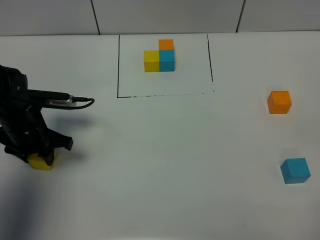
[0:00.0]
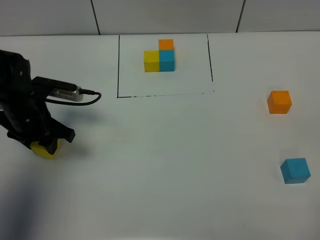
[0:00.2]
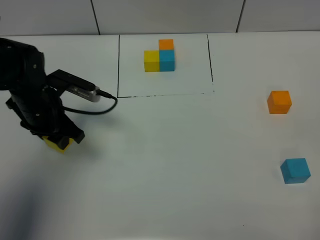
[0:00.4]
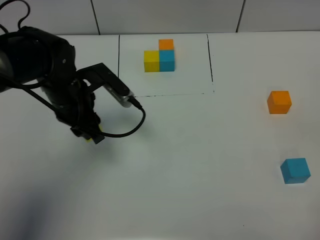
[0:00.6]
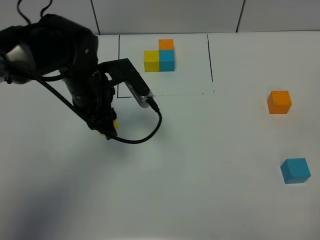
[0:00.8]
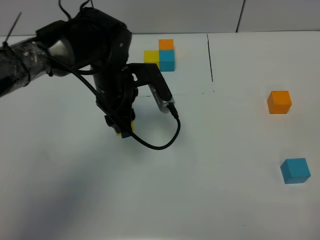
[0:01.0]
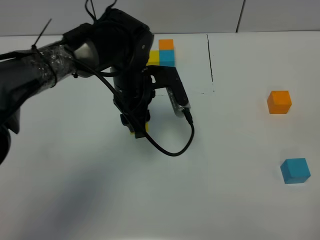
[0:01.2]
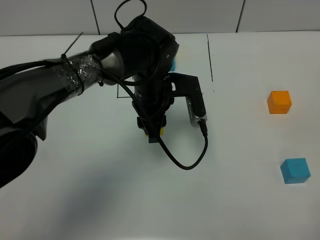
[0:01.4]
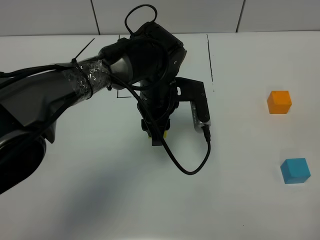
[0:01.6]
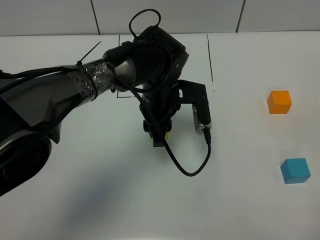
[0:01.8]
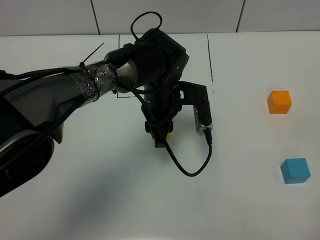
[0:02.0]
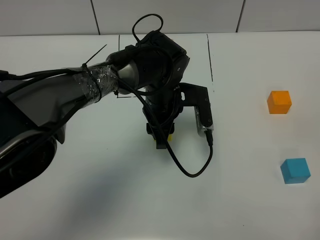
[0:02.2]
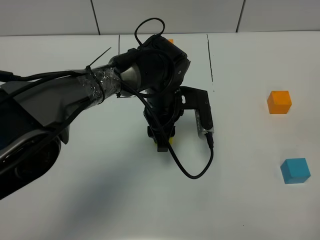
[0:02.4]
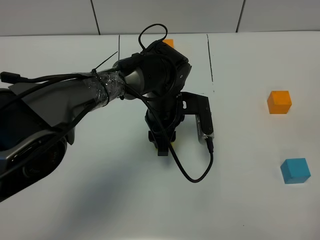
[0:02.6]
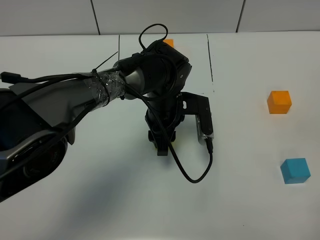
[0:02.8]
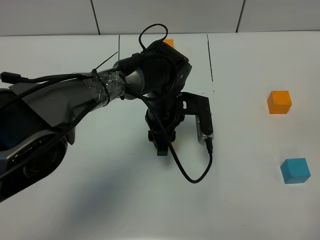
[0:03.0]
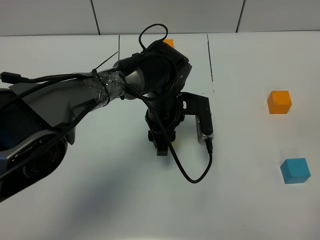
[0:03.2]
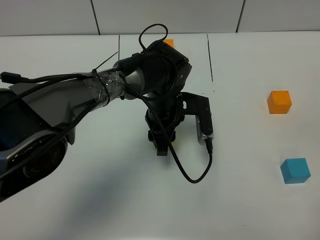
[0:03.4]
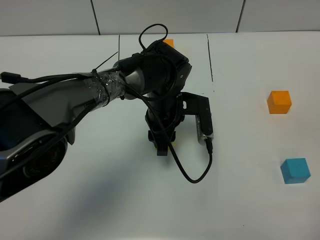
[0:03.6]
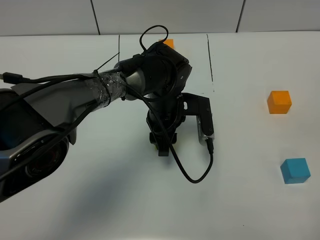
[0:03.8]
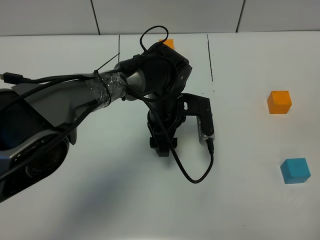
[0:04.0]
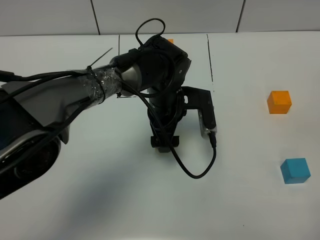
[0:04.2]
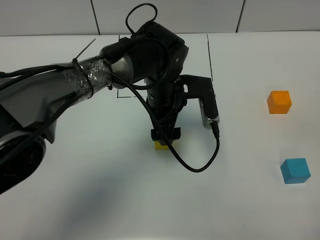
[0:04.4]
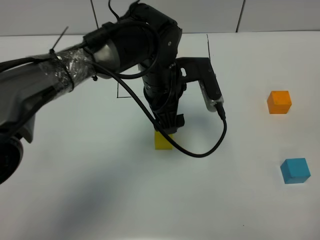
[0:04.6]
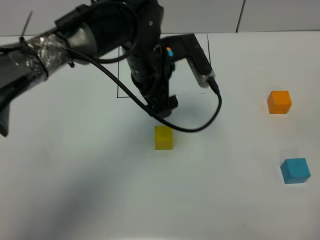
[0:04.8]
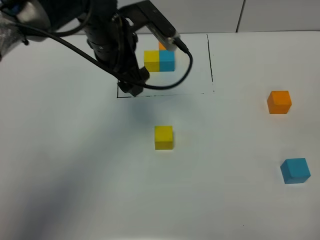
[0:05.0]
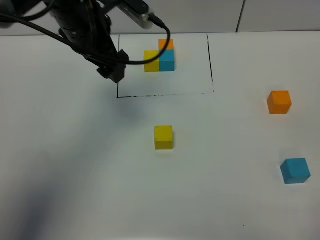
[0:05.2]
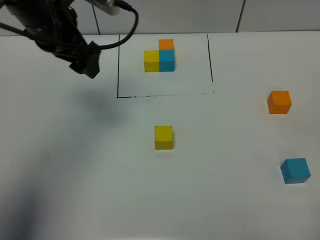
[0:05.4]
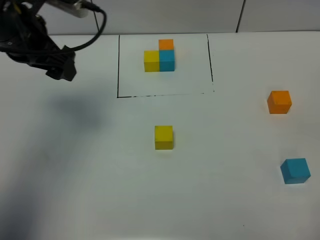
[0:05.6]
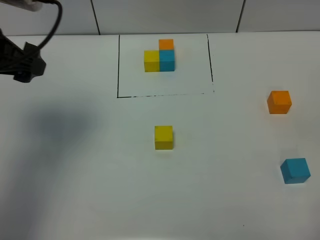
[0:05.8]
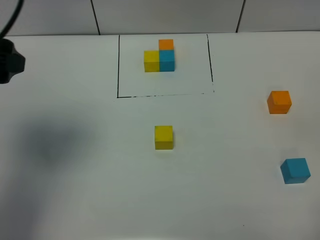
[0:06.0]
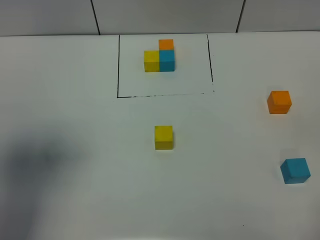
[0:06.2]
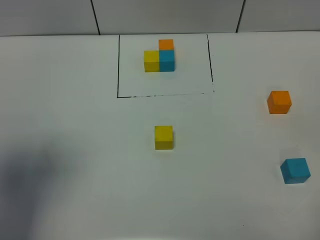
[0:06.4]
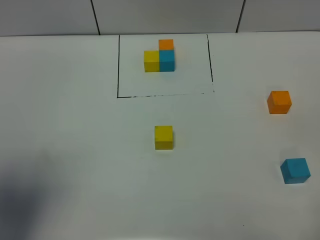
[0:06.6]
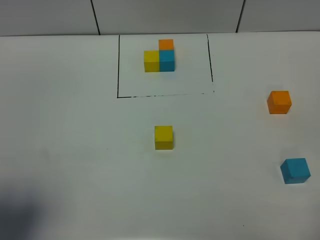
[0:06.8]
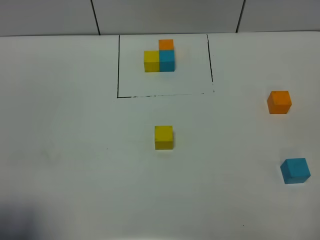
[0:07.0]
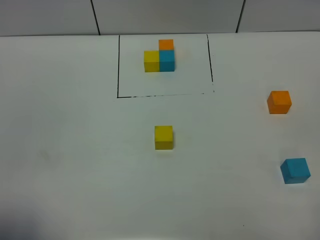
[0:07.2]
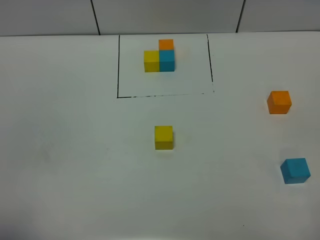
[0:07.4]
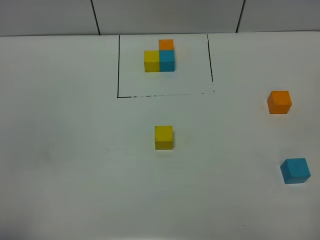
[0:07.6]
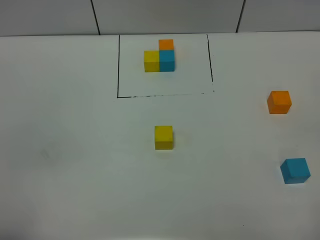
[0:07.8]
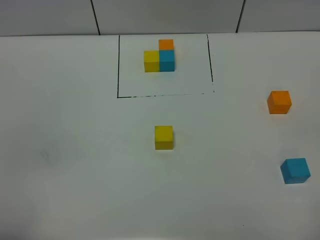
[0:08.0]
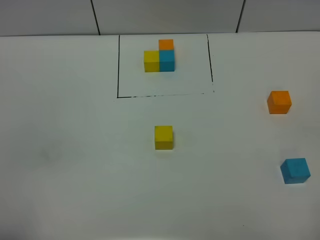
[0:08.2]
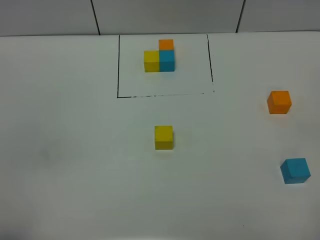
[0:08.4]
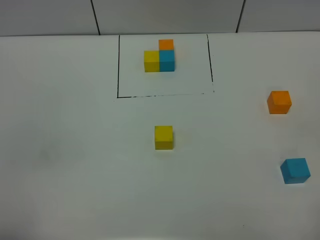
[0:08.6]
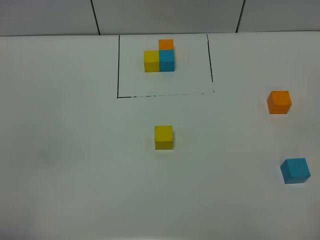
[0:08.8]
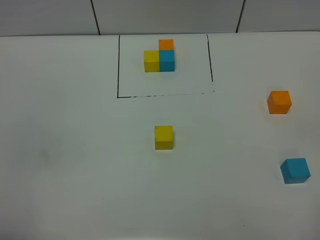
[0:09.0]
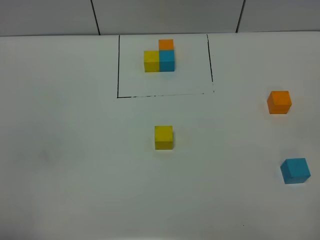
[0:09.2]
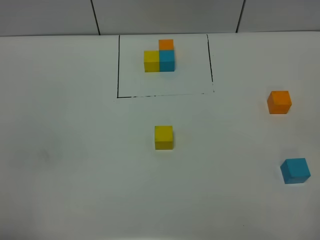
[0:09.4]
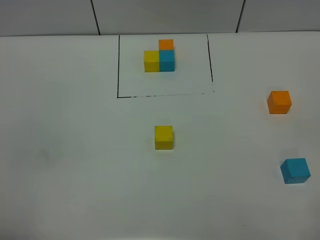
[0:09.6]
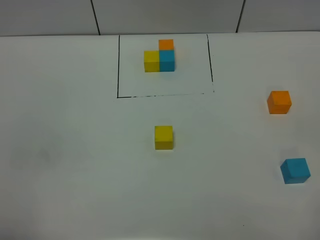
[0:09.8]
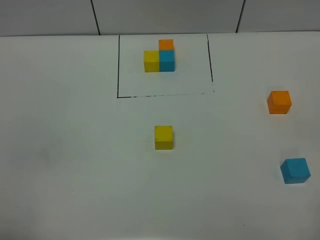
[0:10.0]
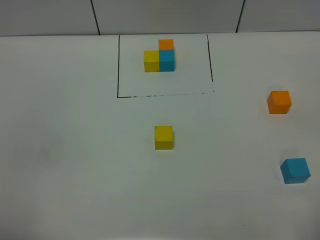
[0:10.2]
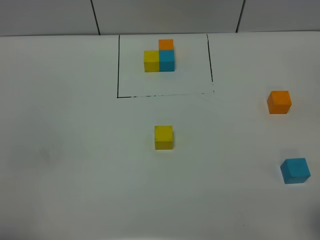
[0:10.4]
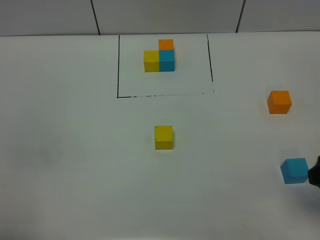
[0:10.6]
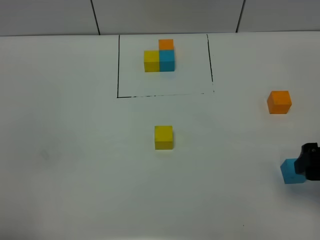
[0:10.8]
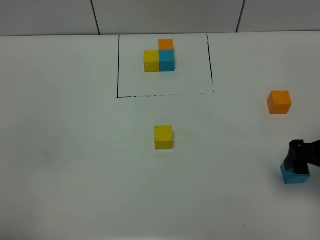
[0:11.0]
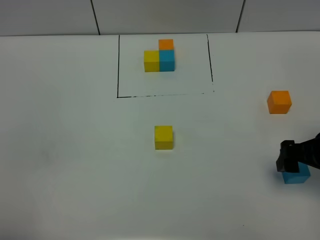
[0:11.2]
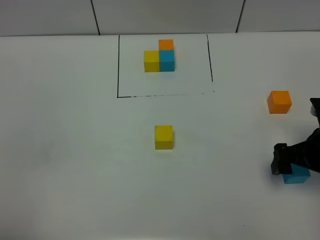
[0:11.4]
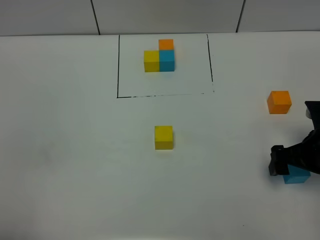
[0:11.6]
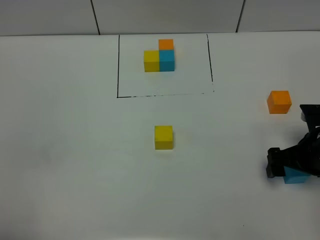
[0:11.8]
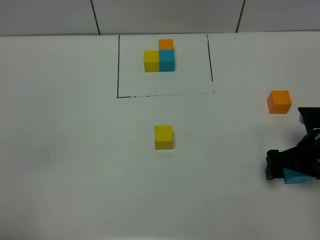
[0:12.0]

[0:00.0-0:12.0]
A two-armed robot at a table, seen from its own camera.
Task of the whole recording: According to the building block template in front, assemble the scattered blocks together.
Step, 0:00.0 to 0:03.8: Put the yellow build block in the center of the table.
0:00.0 to 0:01.6: The left gripper is displaced to the right by some 25 cm.
0:01.6 to 0:03.0: The grippers stay close to where they were, moving slightly.
0:03.0 to 0:04.4: The left gripper opens.
0:04.4 to 0:06.0: The left gripper travels to the left, upward and backward by some 35 cm.
0:06.0 to 0:07.6: The left gripper moves backward, roughly 25 cm.
0:10.4 to 0:12.0: The right gripper goes about 25 cm forward and downward.

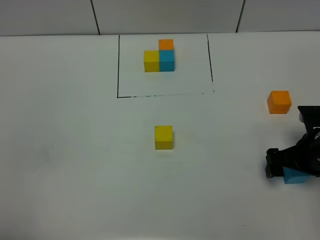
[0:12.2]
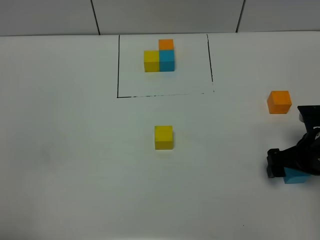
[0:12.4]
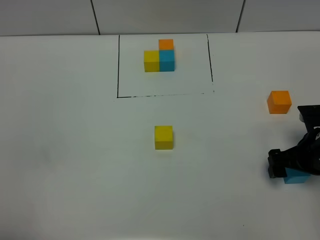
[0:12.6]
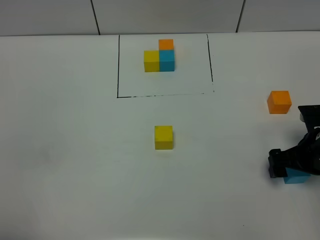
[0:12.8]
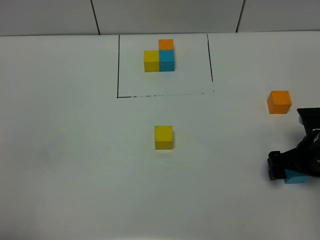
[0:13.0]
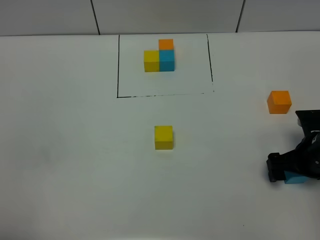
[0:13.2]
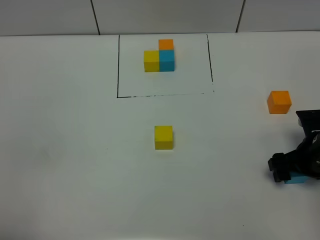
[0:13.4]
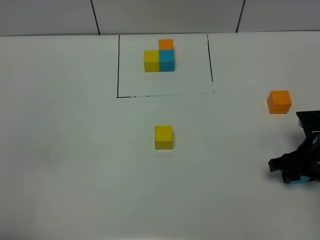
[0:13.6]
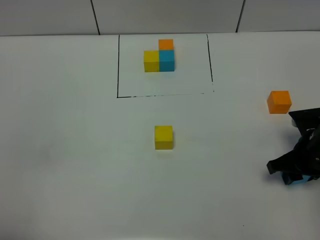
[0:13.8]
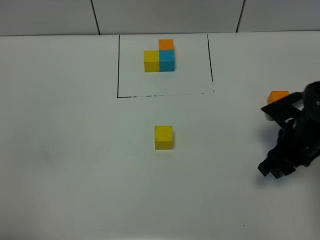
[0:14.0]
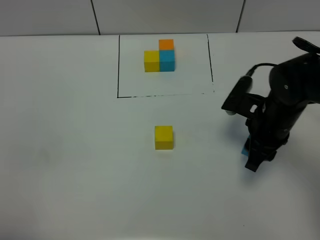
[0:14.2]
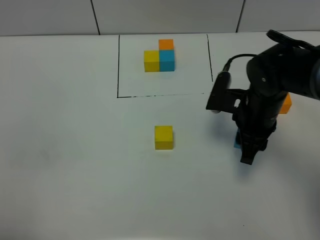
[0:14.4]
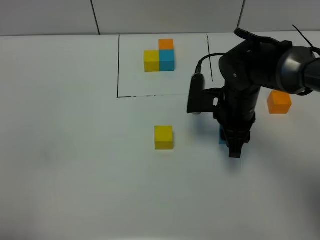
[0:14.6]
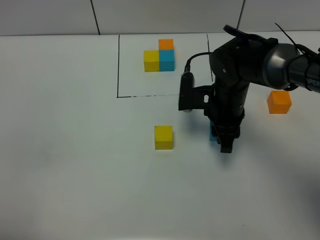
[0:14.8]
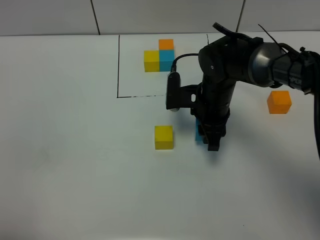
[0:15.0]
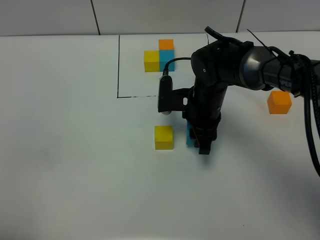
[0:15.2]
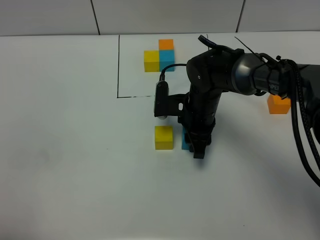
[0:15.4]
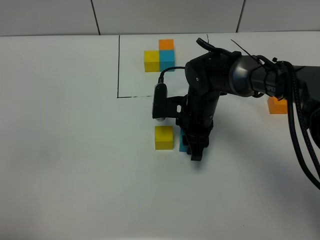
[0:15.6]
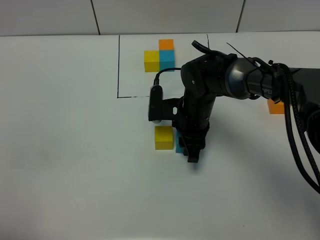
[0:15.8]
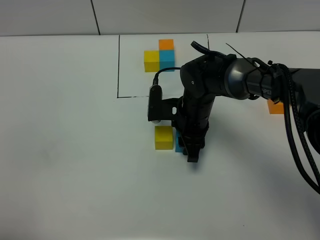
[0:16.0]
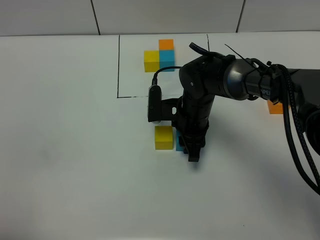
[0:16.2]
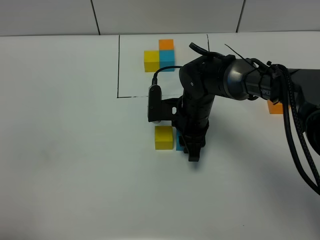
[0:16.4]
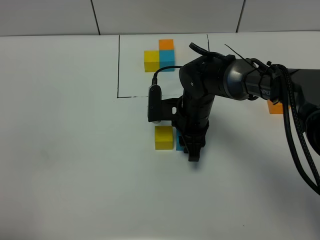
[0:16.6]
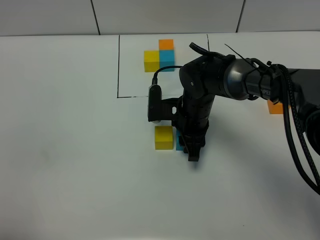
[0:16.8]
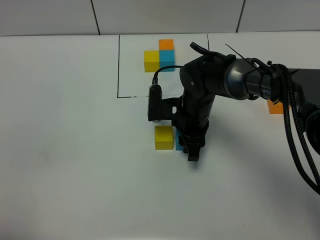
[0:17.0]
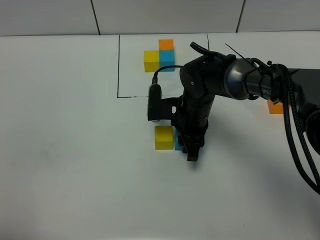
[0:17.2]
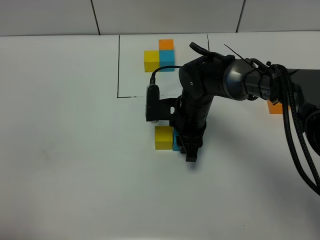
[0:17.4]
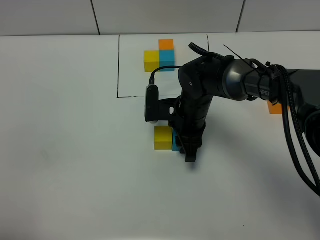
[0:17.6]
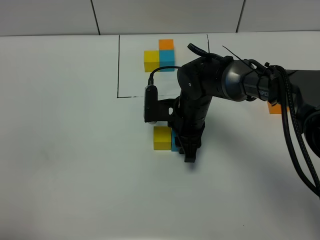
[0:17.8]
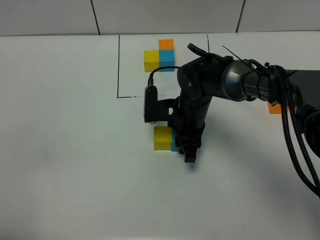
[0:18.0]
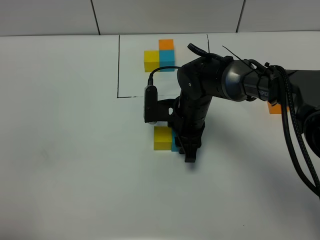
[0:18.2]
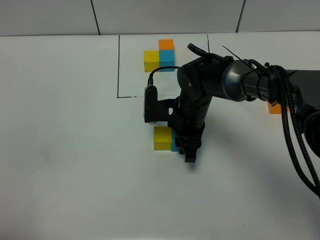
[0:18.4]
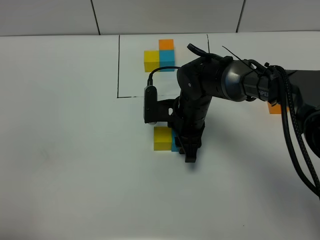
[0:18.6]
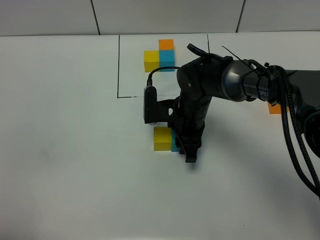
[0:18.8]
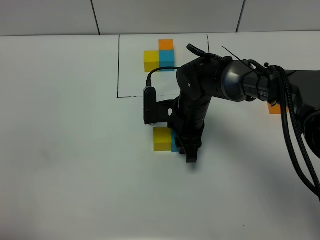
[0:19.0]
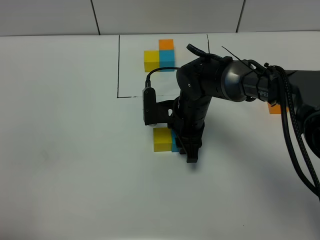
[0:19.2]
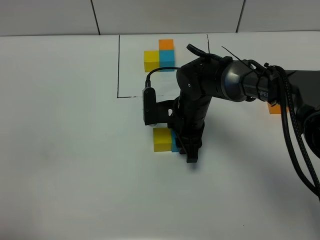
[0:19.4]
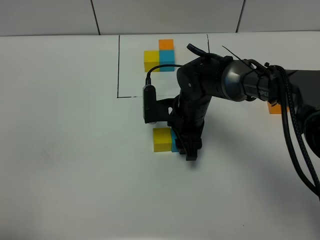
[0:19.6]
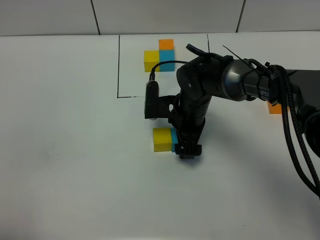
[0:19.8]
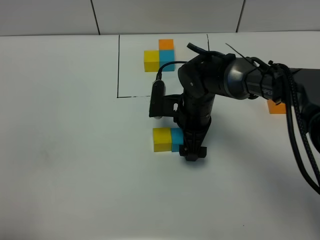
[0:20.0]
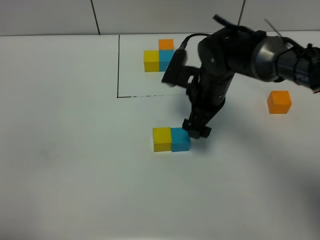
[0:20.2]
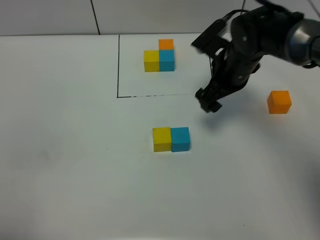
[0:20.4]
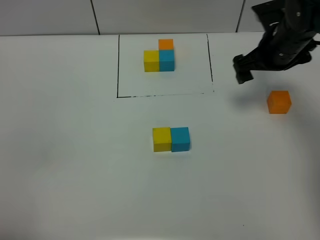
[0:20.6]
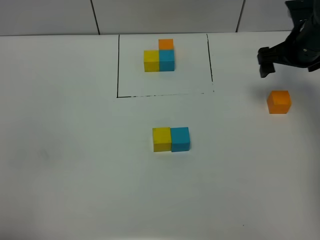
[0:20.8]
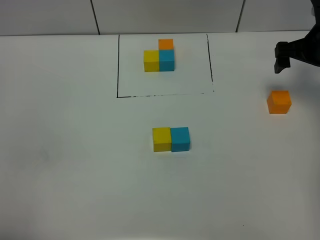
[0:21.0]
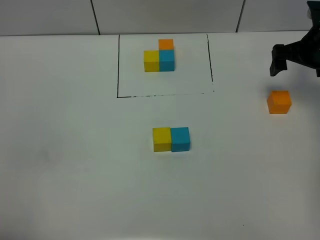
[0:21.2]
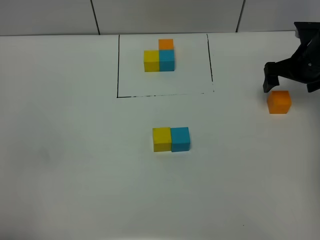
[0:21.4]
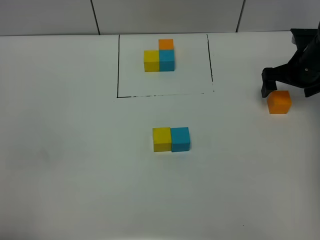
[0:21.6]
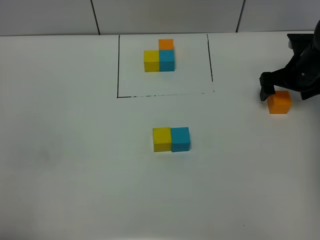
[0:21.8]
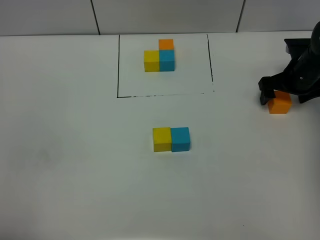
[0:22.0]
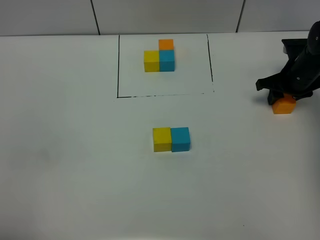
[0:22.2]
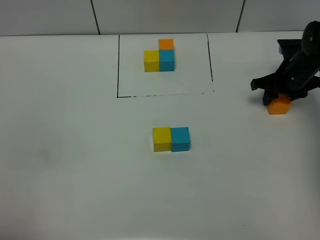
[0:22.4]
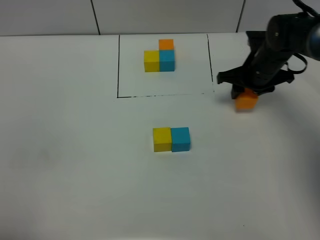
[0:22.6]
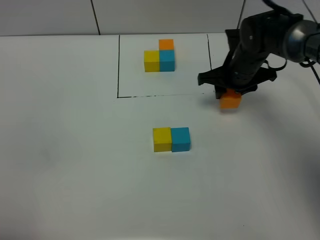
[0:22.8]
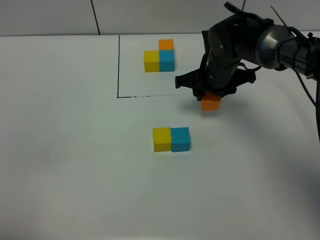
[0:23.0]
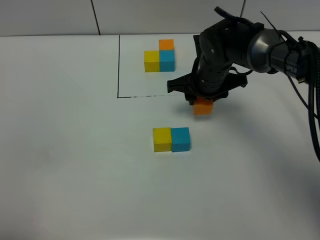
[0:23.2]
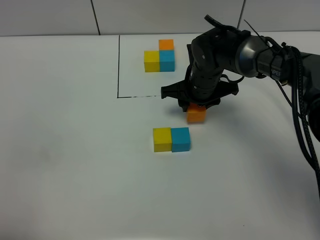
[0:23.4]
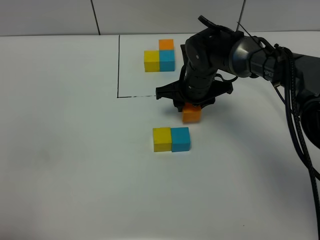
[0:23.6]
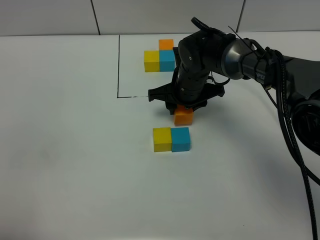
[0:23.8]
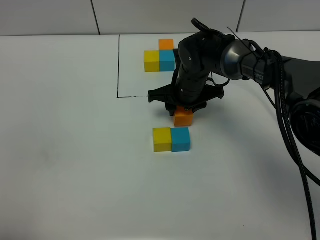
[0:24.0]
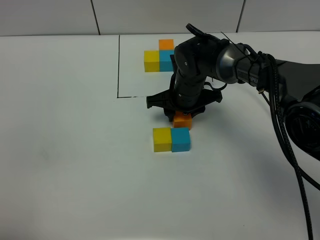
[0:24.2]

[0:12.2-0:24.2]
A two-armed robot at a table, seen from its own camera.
Task of the whole recording: According to the building block template in front, assemble the scattered blocks together.
Step, 0:12.2 to 0:19.6: Put the blue build block on the right of the yellow build block.
0:12.2 to 0:13.8: The right gripper closes up.
0:13.8 to 0:15.2: The right gripper heads to the left and forward, covering about 20 cm.
0:15.2 to 0:16.6: There are only small adjustments of the grippers.
0:16.6 to 0:18.2: Neither gripper changes place.
0:18.2 to 0:19.8: The right gripper opens its fingers.
0:19.8 to 0:21.2: The right gripper heads to the right, covering about 25 cm.
0:21.2 to 0:22.6: The right gripper travels to the left and downward by some 10 cm, and closes up.
0:22.6 to 0:24.2: The right gripper is displaced to the left by approximately 15 cm.
